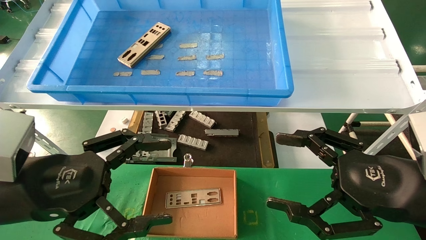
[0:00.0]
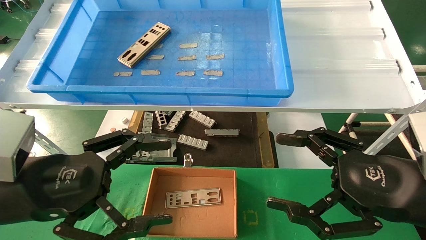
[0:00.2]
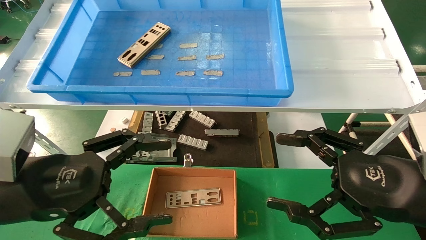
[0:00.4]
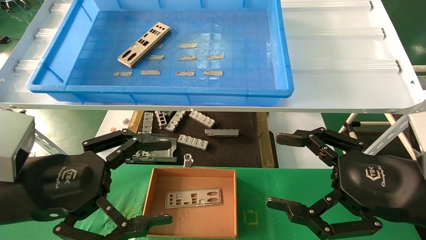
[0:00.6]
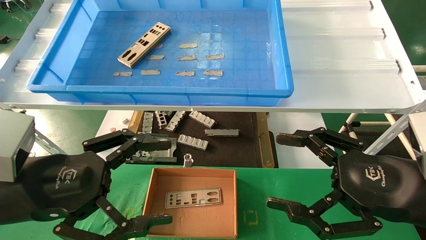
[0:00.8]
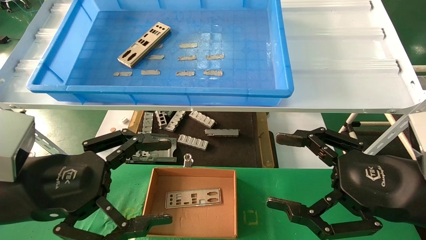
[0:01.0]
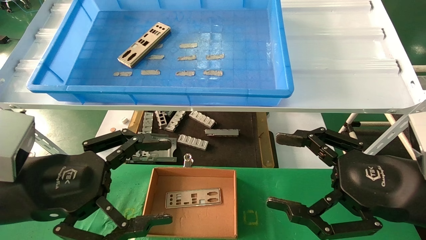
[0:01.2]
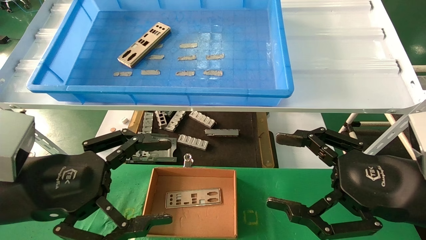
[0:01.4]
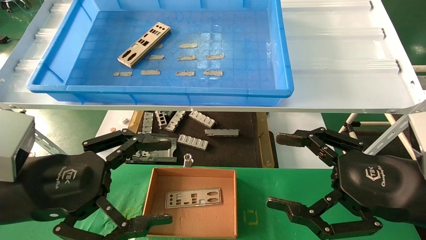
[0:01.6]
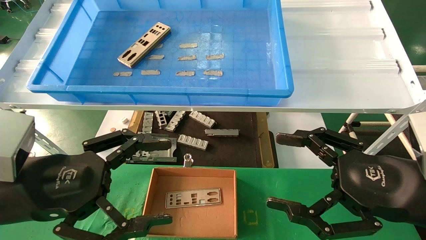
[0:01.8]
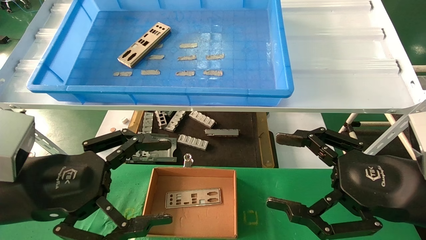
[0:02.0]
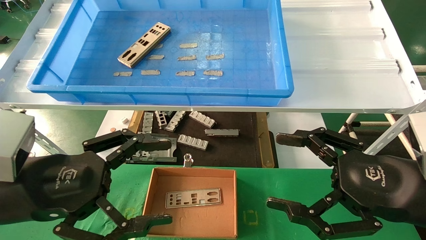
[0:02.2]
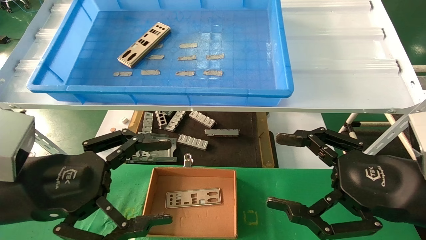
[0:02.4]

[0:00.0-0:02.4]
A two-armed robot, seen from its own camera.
Task of the whole recording: pick up the parts on the tray and put them in the cardboard box.
0:00.0 to 0:02.4: Both grippers stay put.
